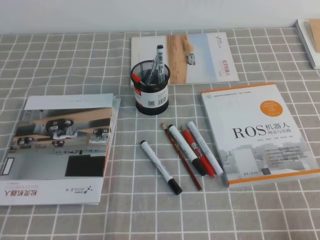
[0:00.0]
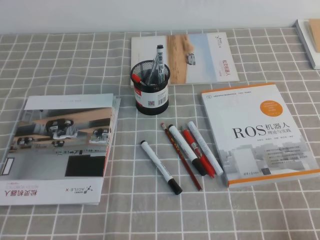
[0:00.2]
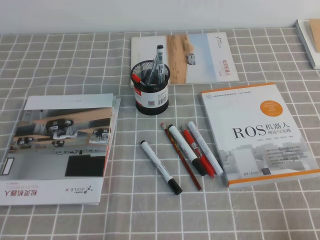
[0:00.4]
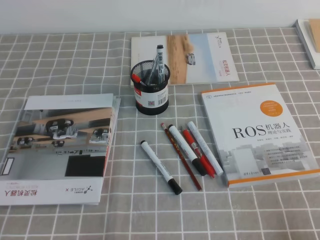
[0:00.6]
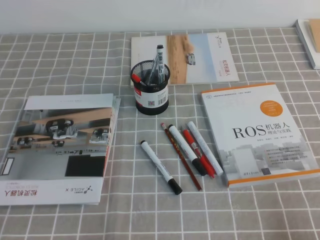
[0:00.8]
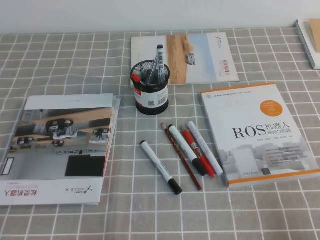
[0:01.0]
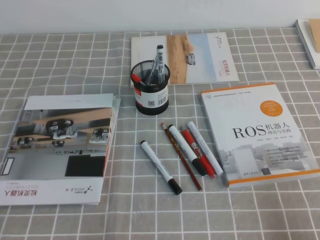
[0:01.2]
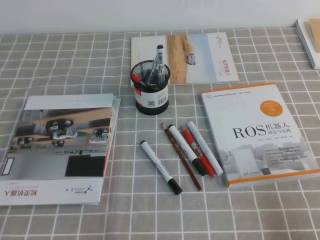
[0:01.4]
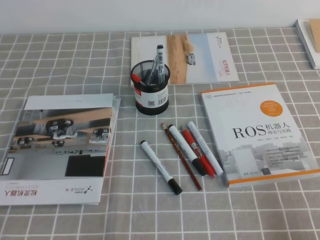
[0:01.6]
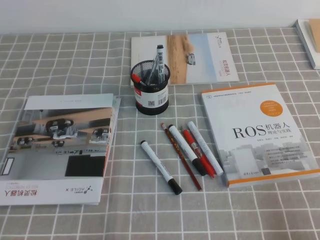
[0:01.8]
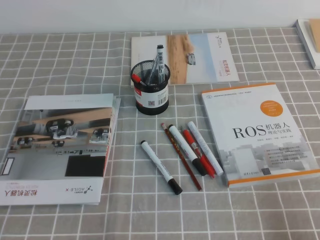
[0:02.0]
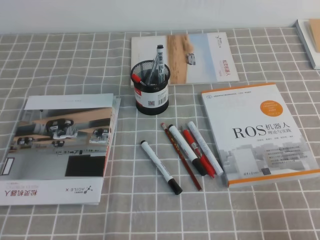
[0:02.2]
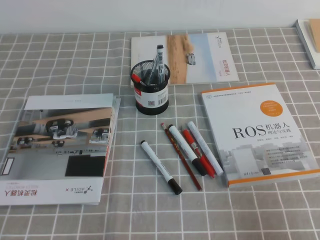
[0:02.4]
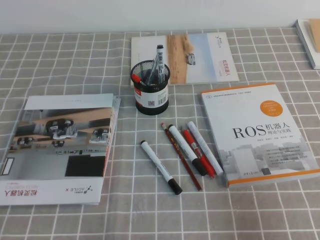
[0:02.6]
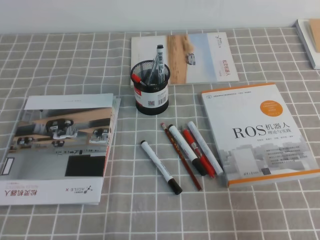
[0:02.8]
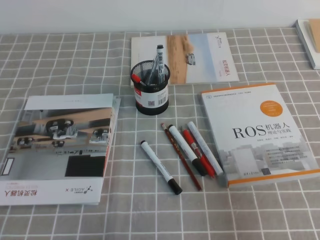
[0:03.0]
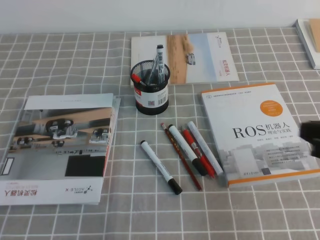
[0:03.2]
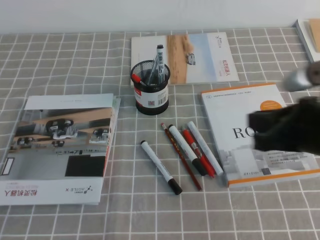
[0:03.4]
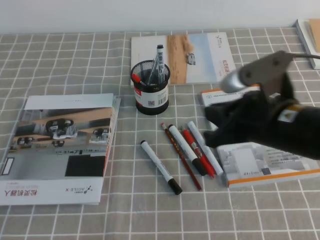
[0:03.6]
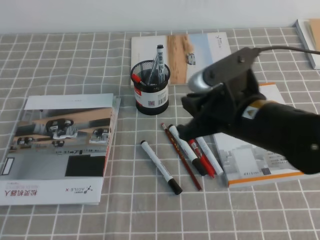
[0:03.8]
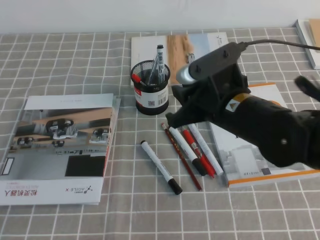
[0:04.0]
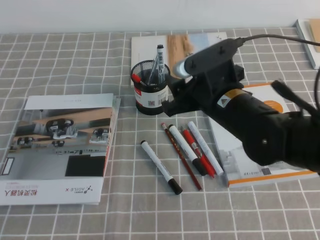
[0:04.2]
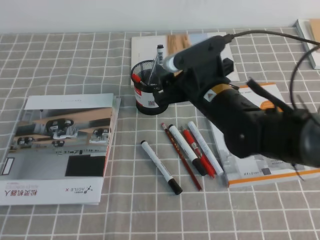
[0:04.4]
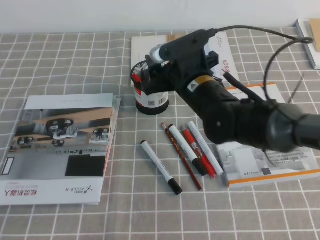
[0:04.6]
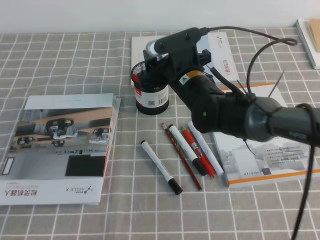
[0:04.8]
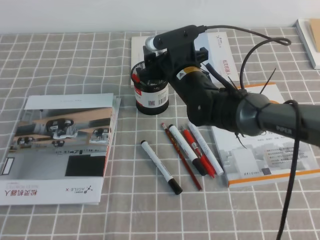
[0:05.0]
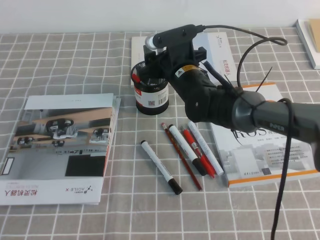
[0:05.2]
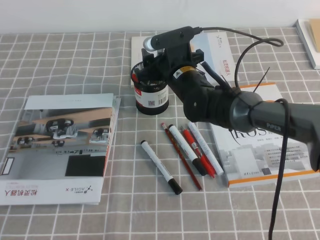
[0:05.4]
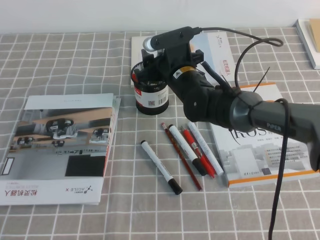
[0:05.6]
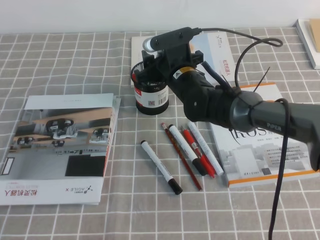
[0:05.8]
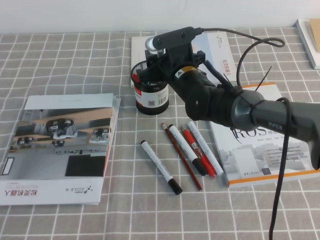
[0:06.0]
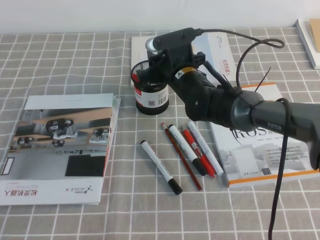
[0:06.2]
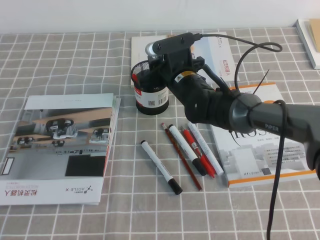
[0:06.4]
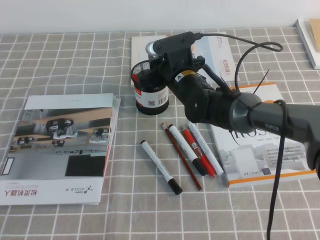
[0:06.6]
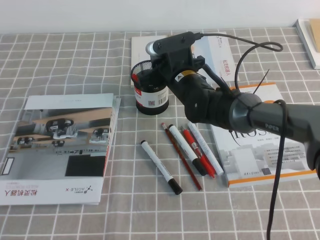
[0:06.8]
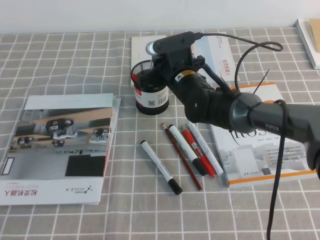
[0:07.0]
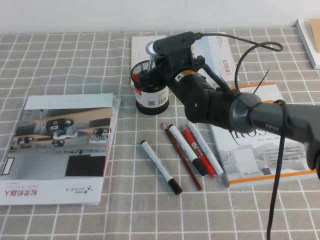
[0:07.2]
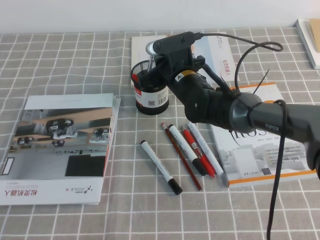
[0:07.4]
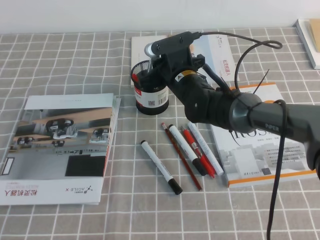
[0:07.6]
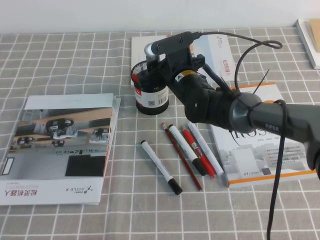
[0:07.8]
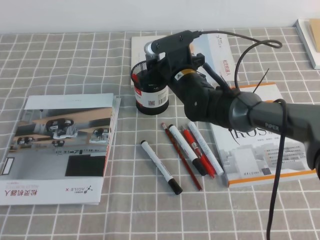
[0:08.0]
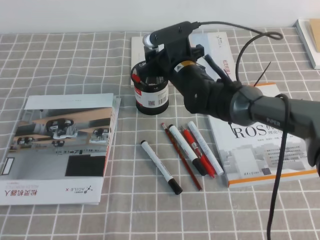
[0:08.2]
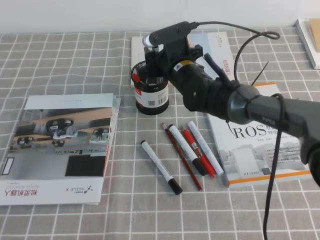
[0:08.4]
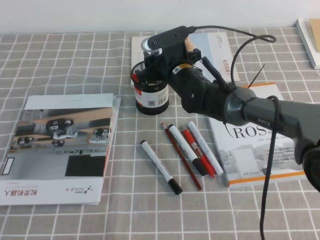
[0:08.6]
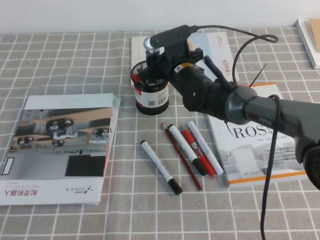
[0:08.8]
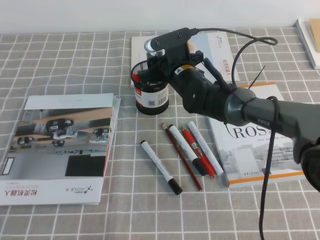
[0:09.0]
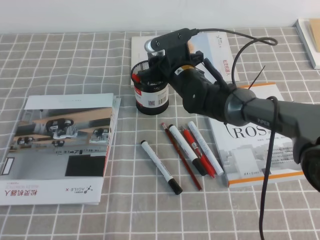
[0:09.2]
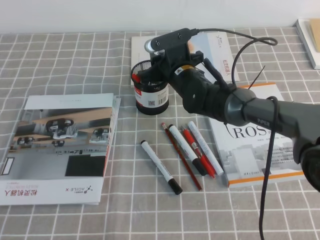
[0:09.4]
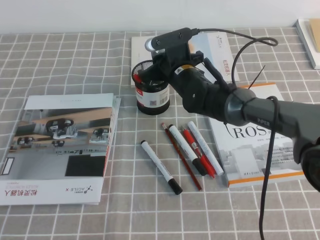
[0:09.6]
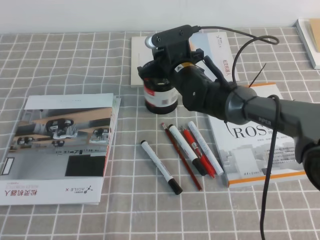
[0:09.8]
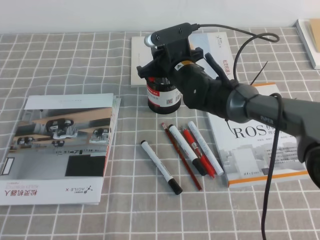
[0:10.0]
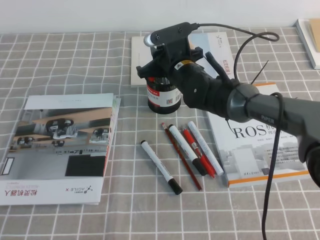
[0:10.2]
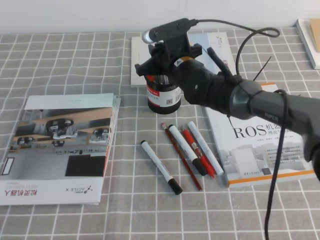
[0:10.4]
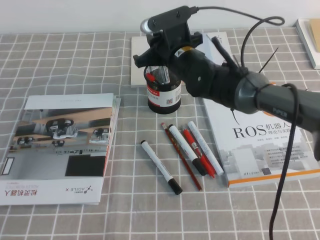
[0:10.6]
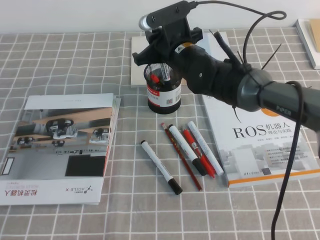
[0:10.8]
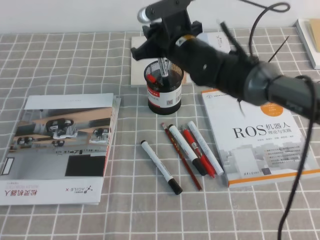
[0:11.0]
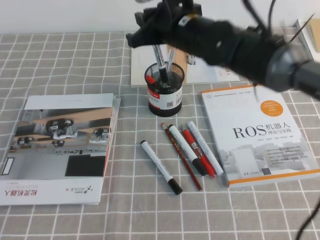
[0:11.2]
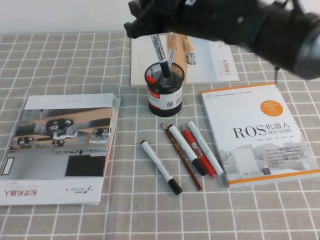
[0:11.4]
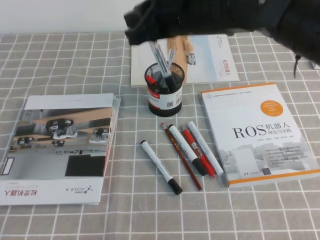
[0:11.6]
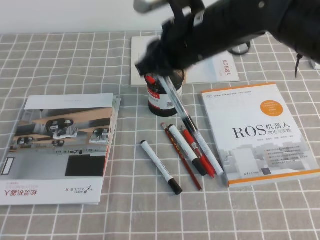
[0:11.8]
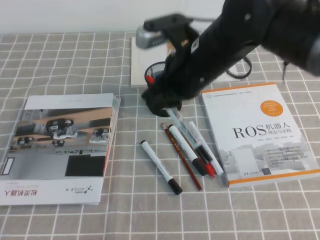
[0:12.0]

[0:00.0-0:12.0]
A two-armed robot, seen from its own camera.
0:01.6 to 0:03.0: The right gripper is displaced upward and forward by roughly 15 cm.
0:03.0 to 0:04.4: The right gripper heads to the left and forward, covering some 30 cm, and opens up.
0:04.4 to 0:06.0: The right gripper is displaced forward by about 10 cm.
0:06.0 to 0:07.6: The right gripper closes up.
0:07.6 to 0:09.0: The right gripper opens up.
0:09.0 to 0:10.4: The right gripper closes up.
0:10.4 to 0:12.0: The right gripper heads backward and upward, covering roughly 15 cm.

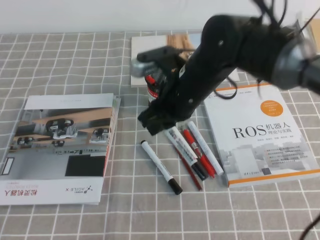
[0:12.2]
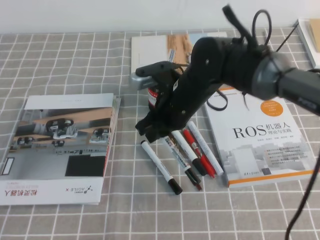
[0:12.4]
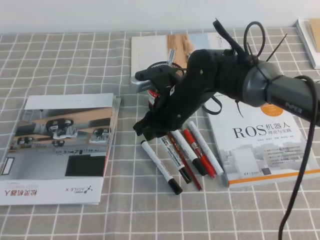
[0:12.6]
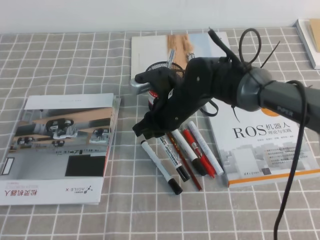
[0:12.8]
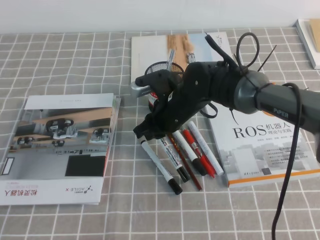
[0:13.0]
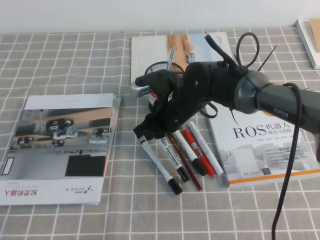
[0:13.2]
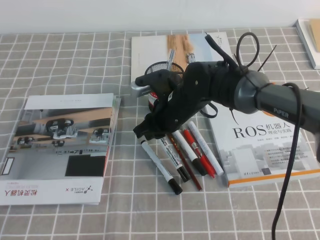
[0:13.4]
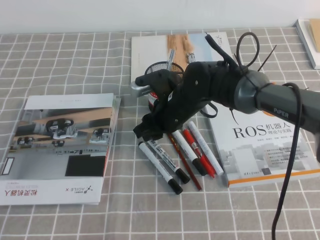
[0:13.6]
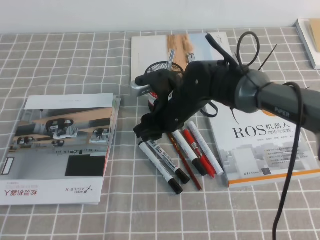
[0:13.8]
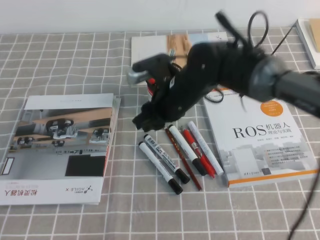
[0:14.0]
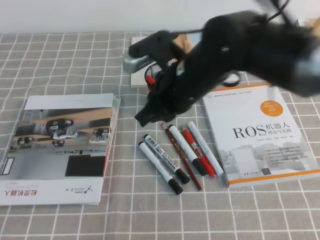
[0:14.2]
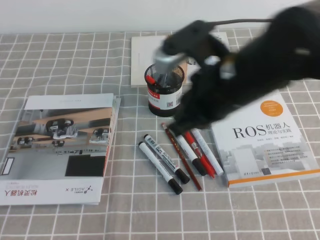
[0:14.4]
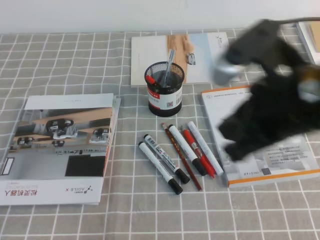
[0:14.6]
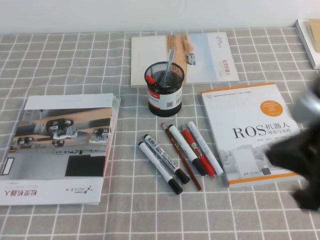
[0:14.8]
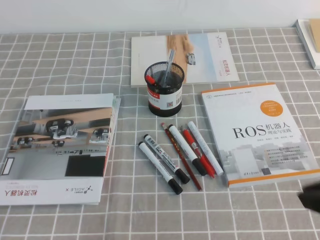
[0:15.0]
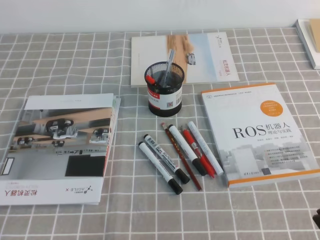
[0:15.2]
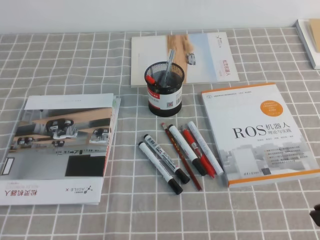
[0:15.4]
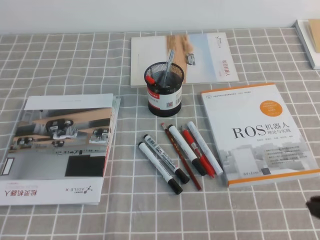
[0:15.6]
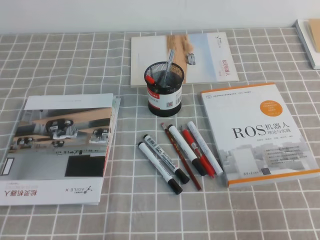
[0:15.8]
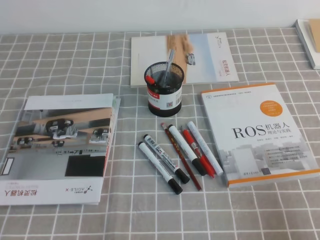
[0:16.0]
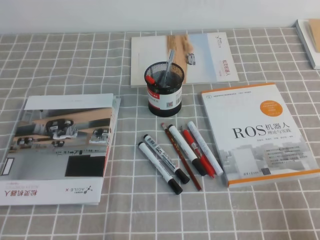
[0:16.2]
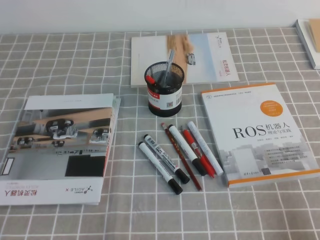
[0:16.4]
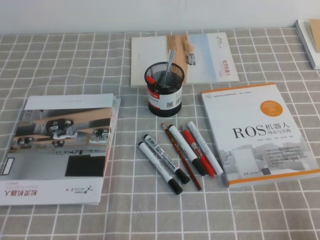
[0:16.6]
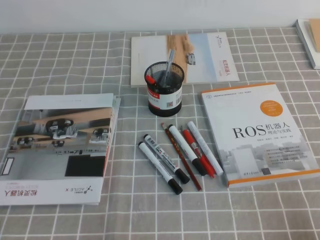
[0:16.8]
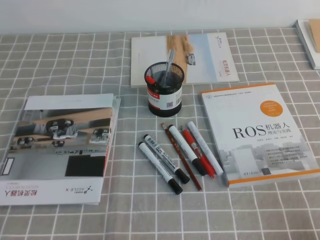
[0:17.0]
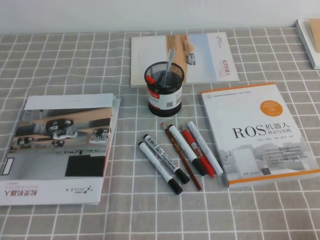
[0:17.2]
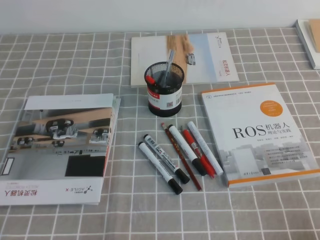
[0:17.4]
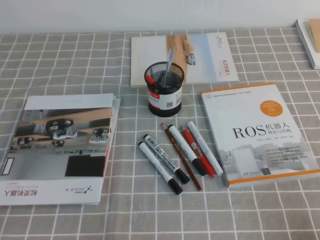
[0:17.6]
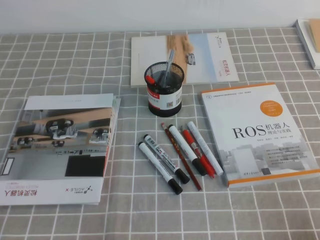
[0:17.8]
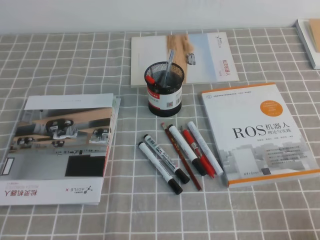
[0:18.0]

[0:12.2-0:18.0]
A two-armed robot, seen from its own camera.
Step, 0:12.2 to 0:18.0: Pick up the pen from the pen holder.
0:12.2 to 0:13.6: The right gripper shifts some 10 cm downward.
0:13.6 to 0:15.0: The right gripper travels backward, to the right and upward by roughly 35 cm, and closes.
0:15.0 to 0:16.6: The right gripper is displaced downward and to the right by about 20 cm.

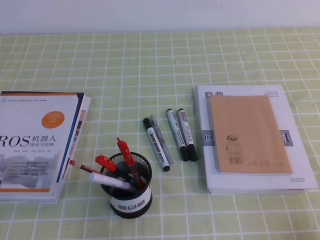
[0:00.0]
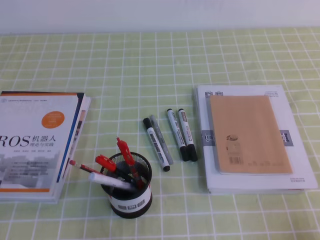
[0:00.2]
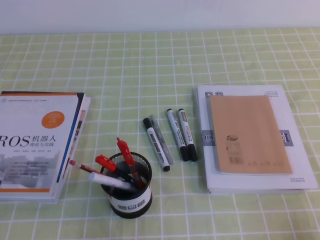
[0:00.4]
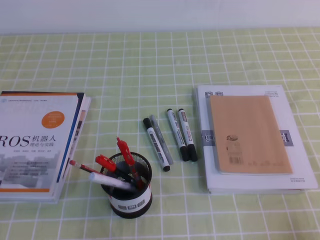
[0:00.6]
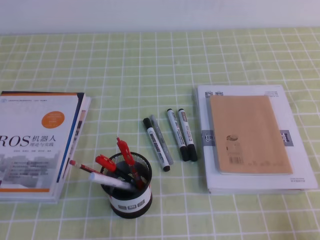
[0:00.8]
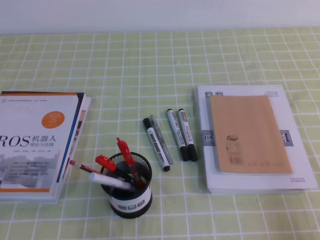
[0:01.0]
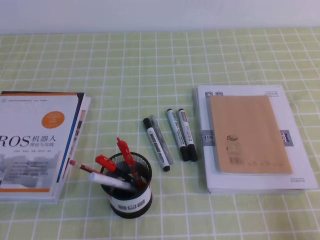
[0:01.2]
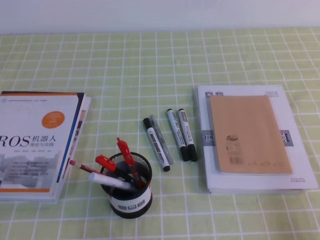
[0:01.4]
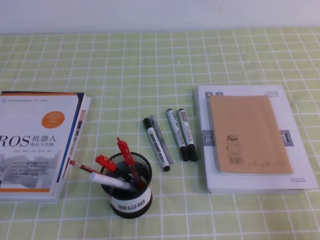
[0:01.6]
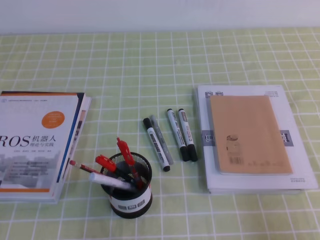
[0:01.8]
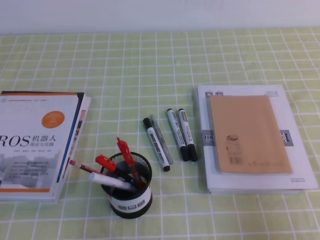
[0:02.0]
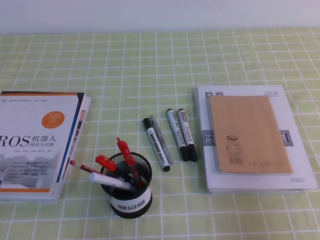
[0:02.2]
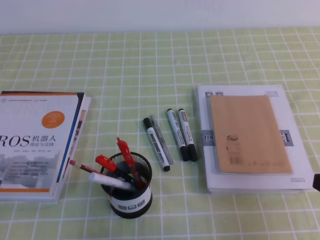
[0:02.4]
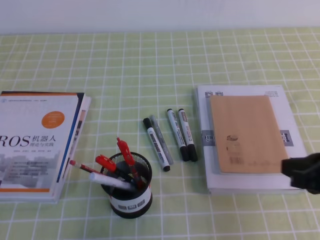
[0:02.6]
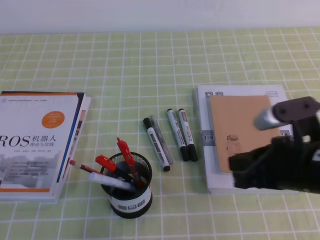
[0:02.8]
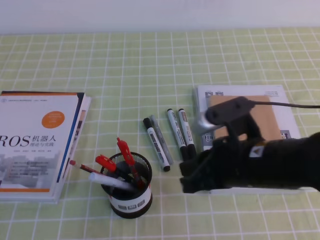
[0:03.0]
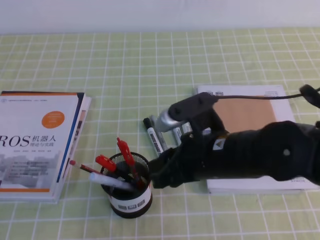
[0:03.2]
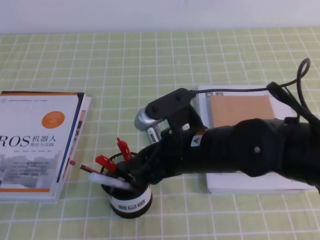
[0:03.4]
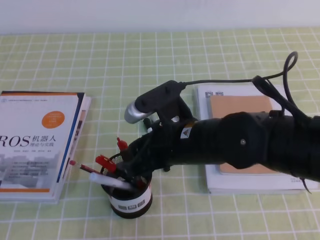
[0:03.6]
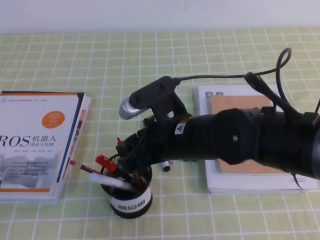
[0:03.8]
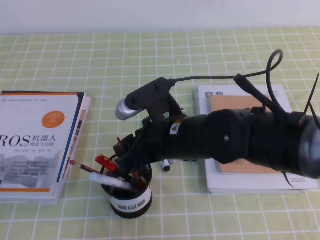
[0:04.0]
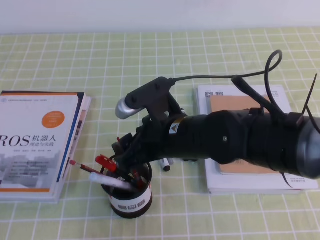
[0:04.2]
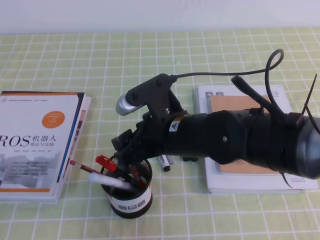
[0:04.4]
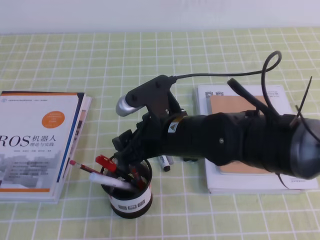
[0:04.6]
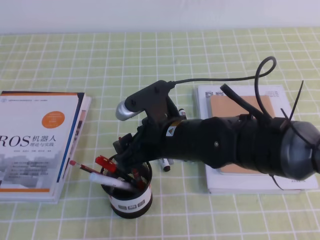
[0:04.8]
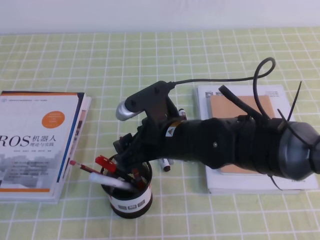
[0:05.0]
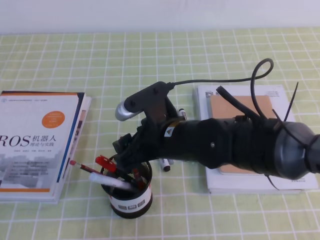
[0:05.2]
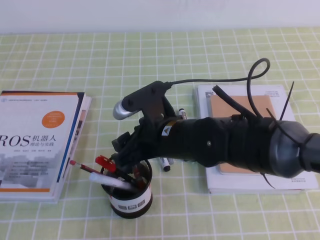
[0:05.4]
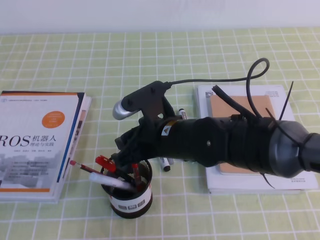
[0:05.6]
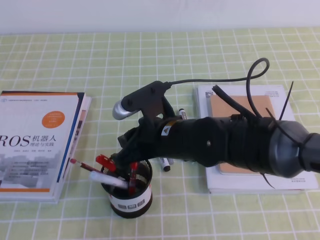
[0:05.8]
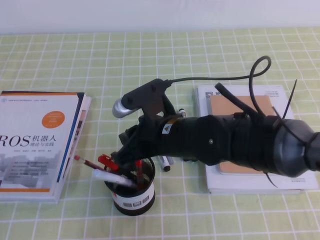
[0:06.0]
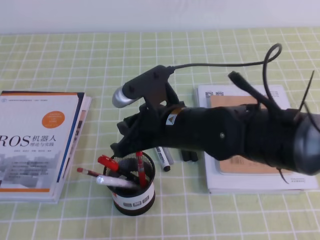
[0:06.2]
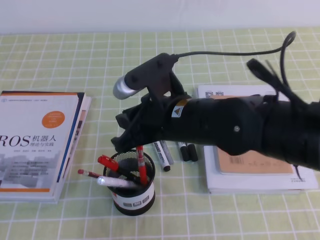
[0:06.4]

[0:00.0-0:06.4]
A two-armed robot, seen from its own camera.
0:01.6 to 0:03.2: The right gripper travels to the left and forward by roughly 30 cm, and opens its fingers.
0:03.2 to 0:04.8: The right gripper heads to the left, covering roughly 5 cm, and opens its fingers.
0:04.8 to 0:06.4: The right gripper closes up.
